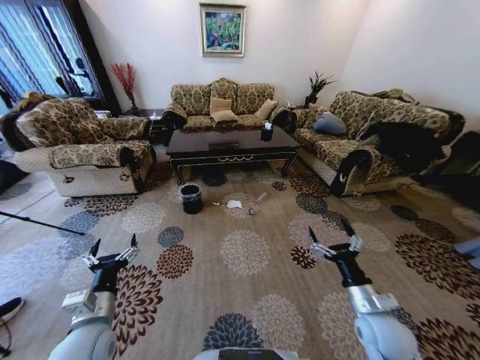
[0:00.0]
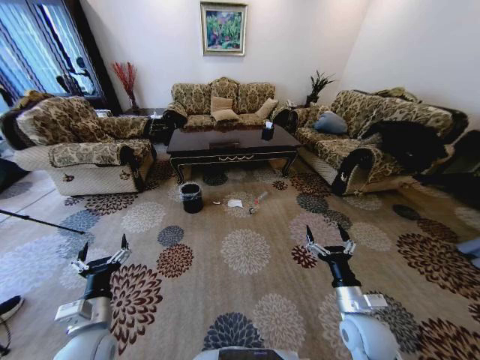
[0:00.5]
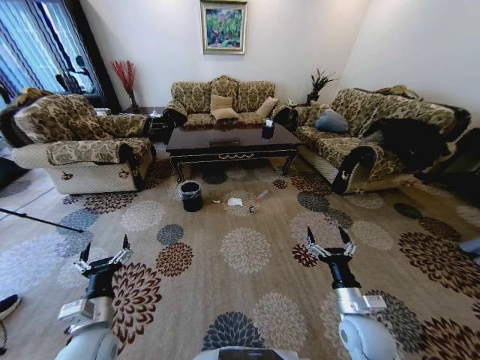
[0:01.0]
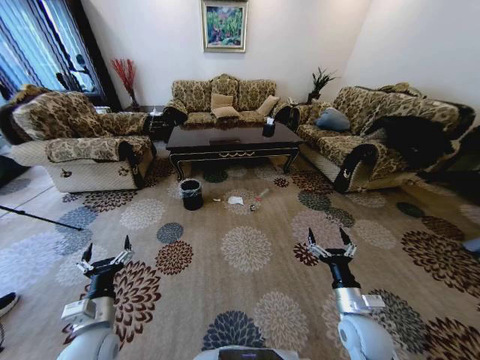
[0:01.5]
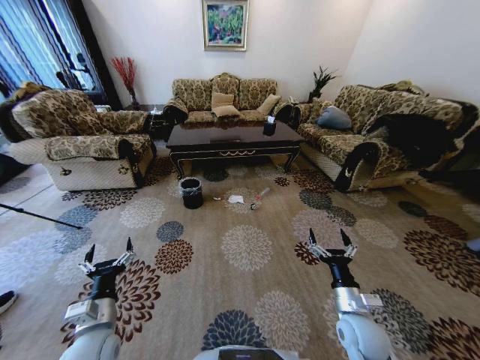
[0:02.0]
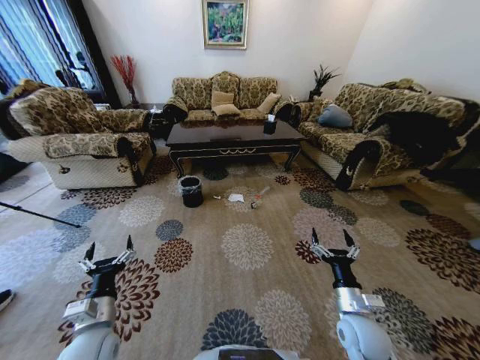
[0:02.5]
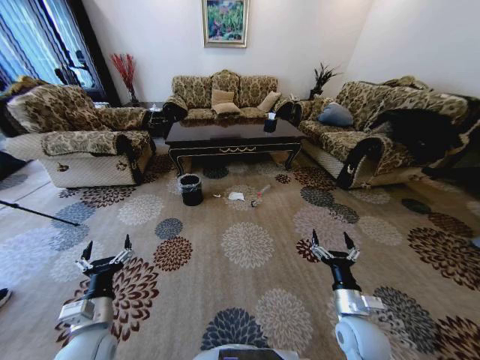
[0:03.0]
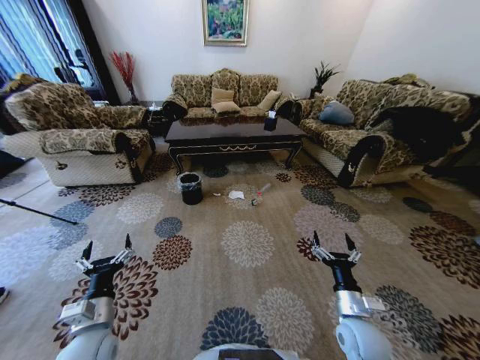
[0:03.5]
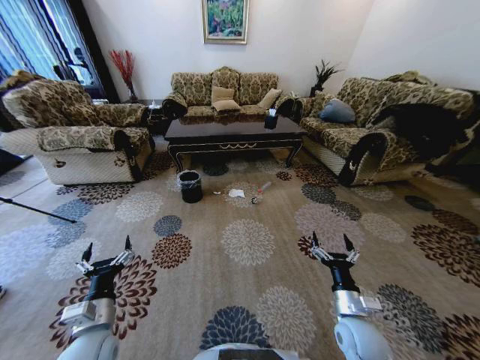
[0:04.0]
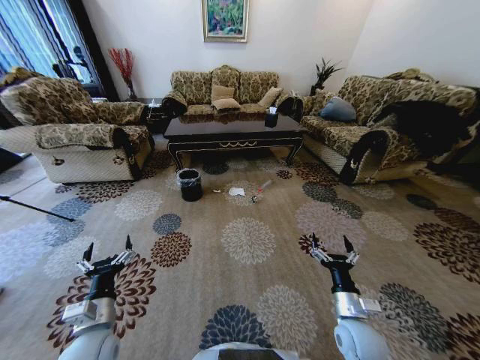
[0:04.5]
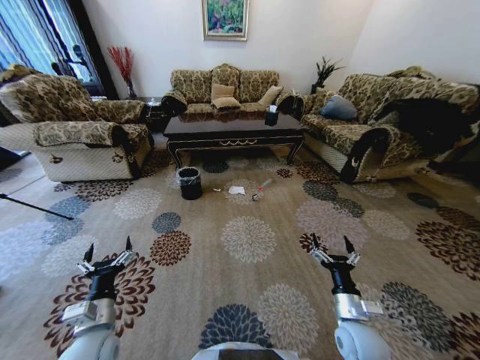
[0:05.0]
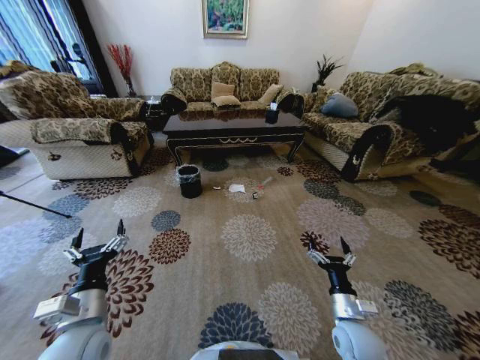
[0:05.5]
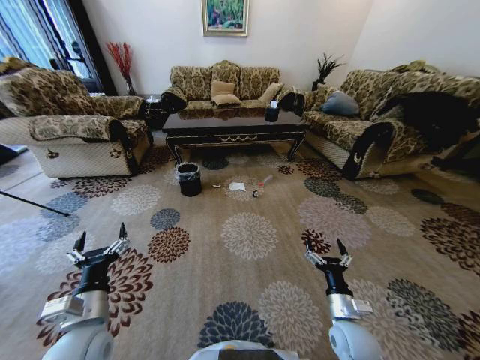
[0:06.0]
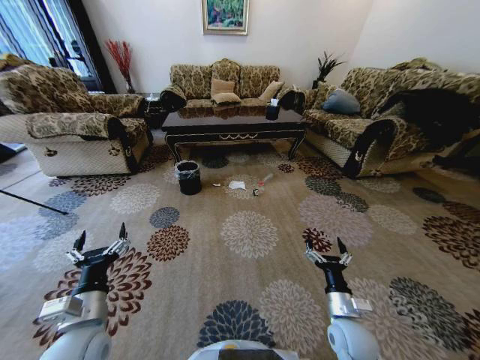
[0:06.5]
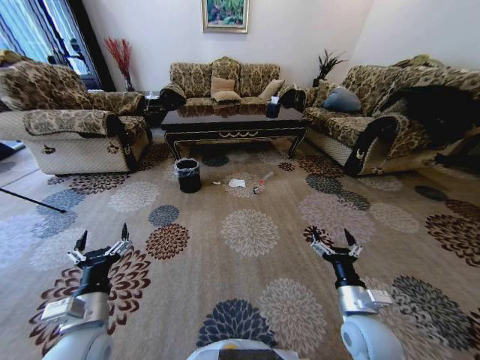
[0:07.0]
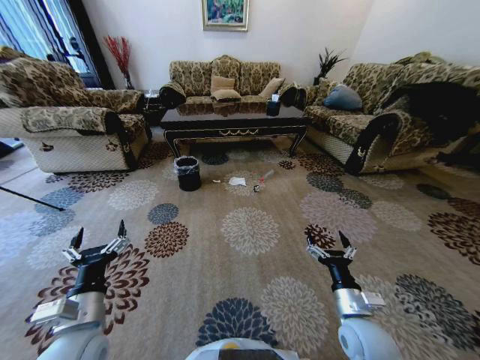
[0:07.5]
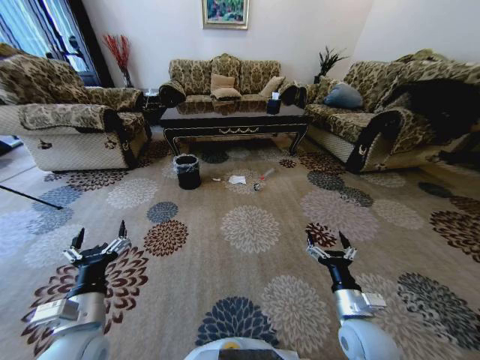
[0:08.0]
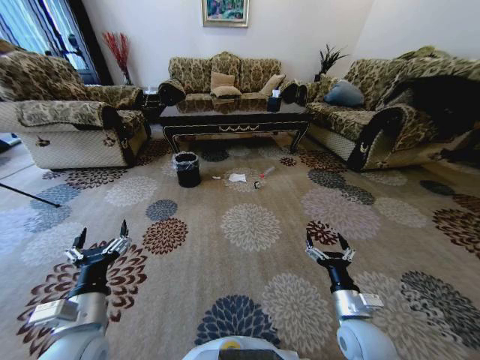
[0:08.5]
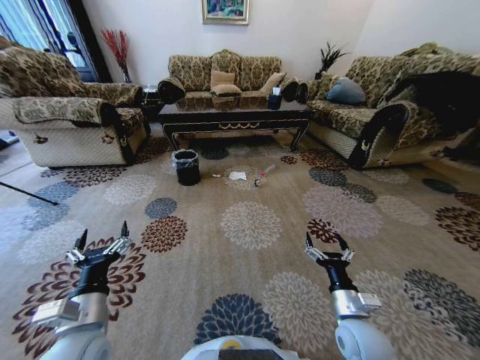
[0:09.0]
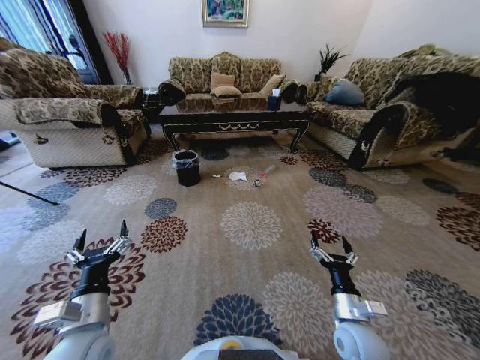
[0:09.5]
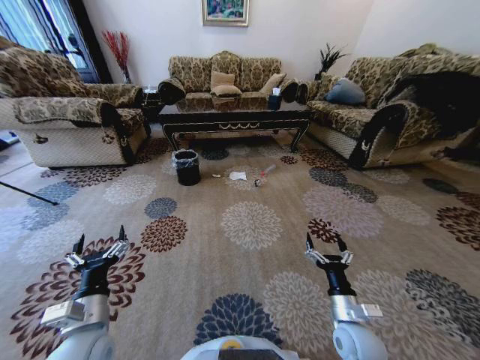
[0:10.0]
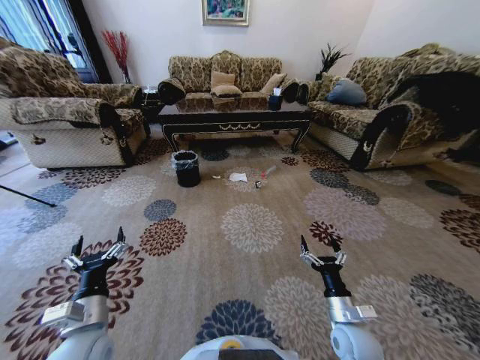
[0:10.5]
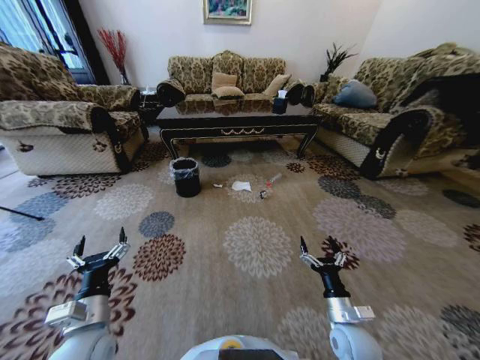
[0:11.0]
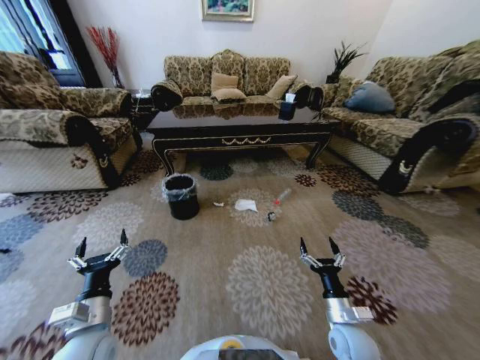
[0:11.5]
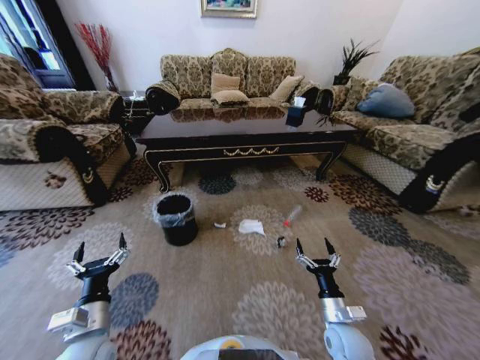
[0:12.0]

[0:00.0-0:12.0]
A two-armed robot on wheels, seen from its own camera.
Task of the whole recording: Move to the front of the table and pick up the trash from the floor, then place it into the trash bin.
0:06.0 to 0:08.0: The right gripper shifts roughly 5 cm upward.

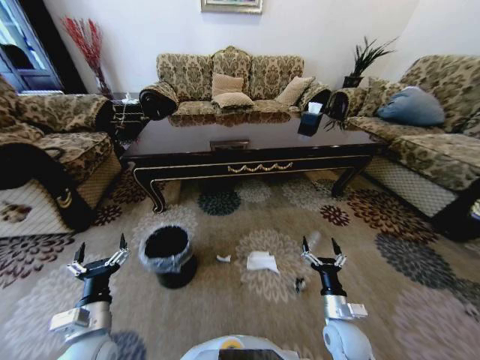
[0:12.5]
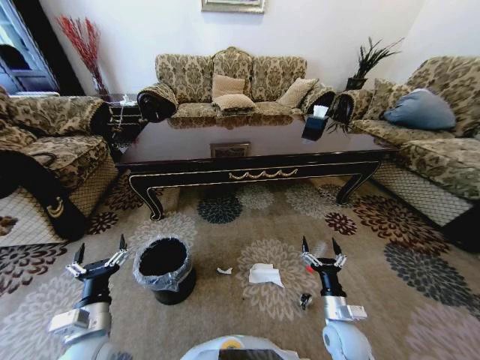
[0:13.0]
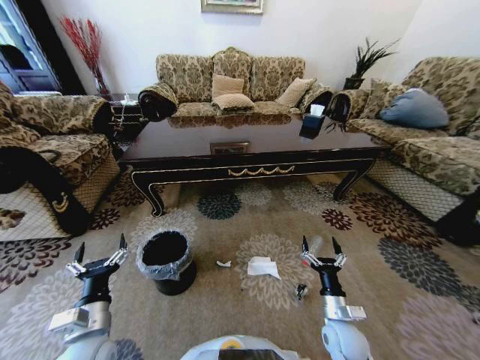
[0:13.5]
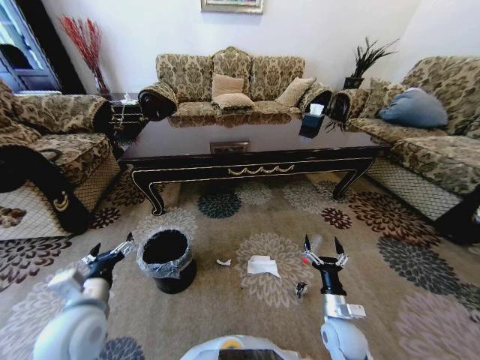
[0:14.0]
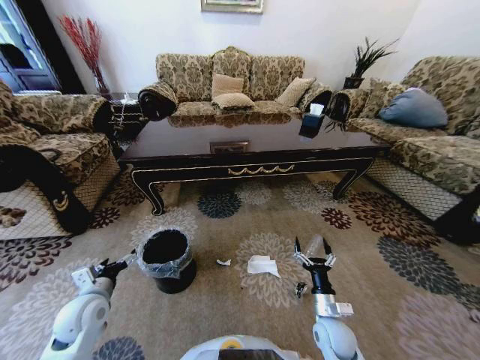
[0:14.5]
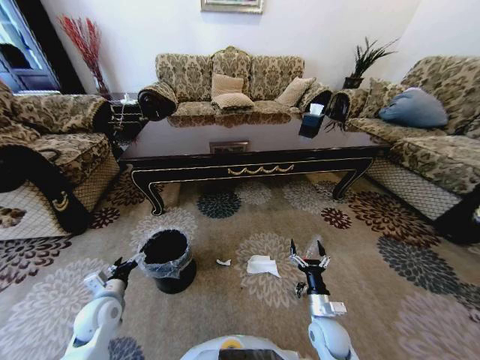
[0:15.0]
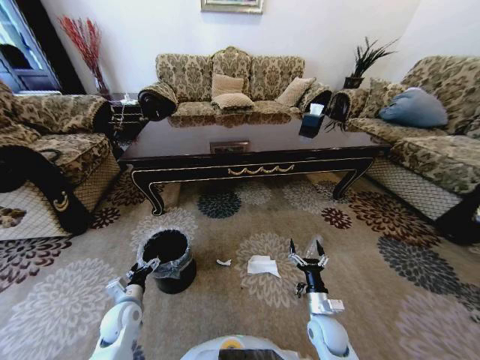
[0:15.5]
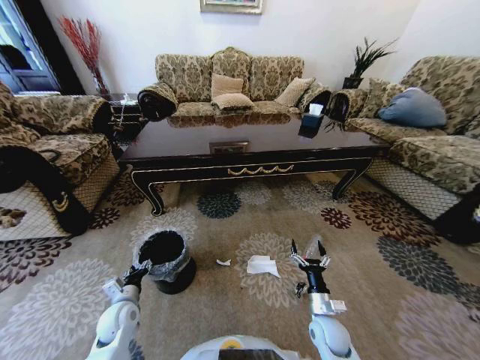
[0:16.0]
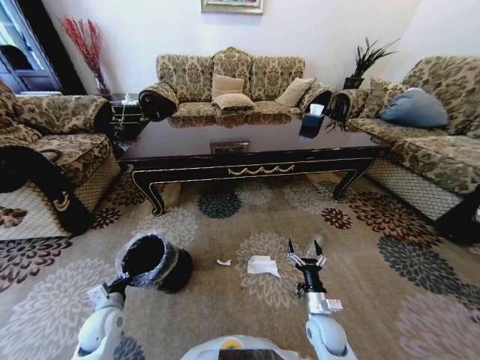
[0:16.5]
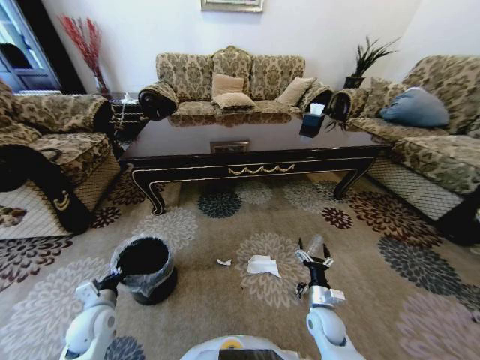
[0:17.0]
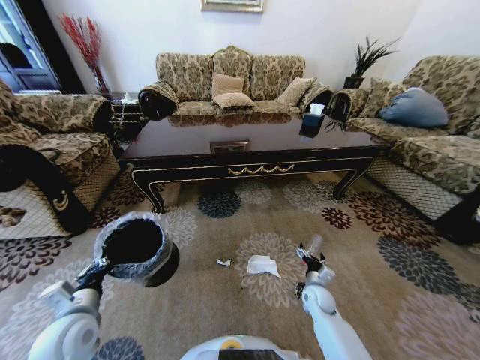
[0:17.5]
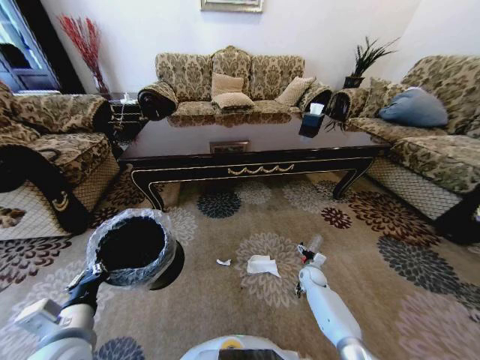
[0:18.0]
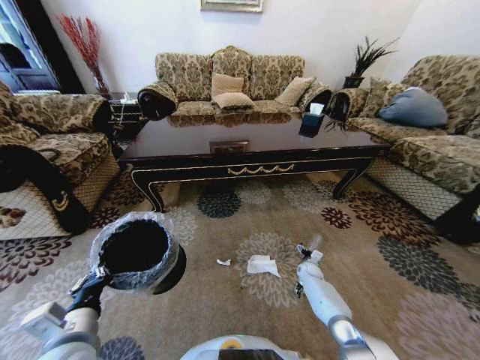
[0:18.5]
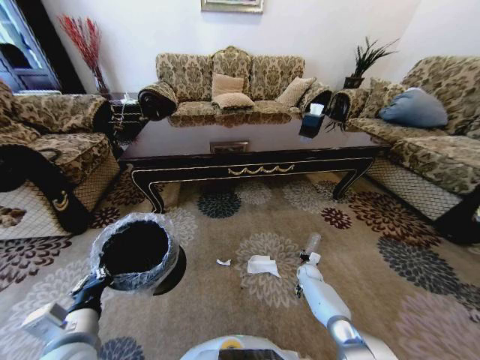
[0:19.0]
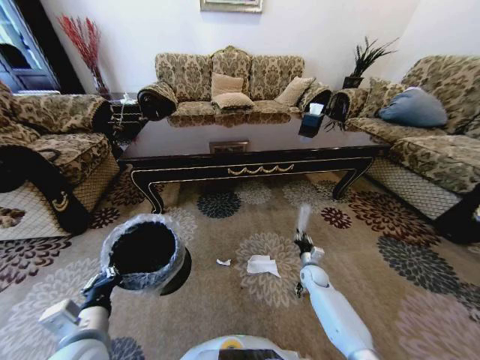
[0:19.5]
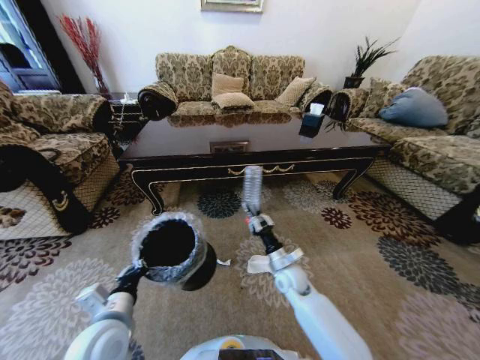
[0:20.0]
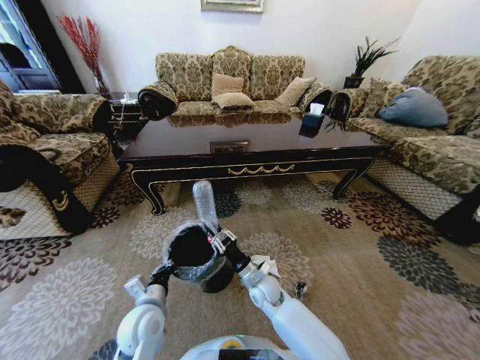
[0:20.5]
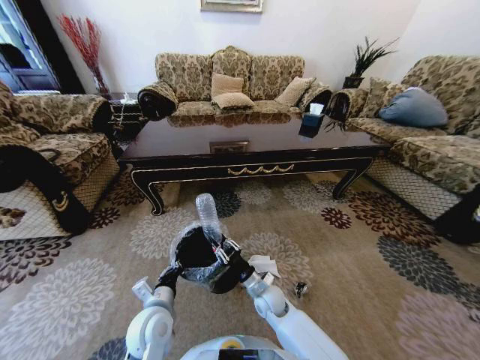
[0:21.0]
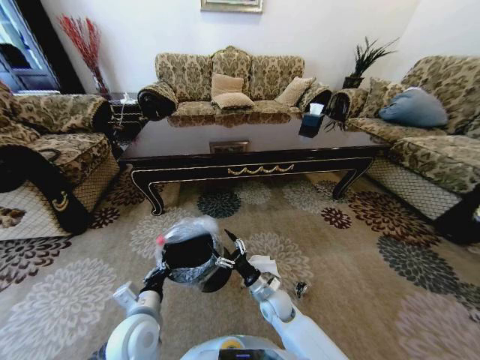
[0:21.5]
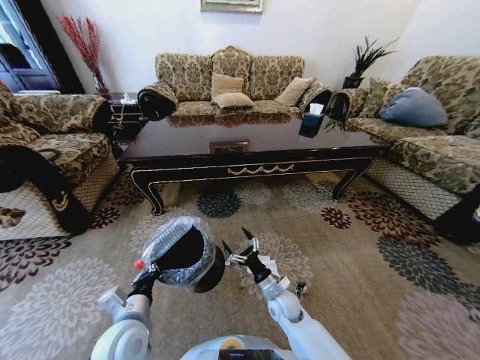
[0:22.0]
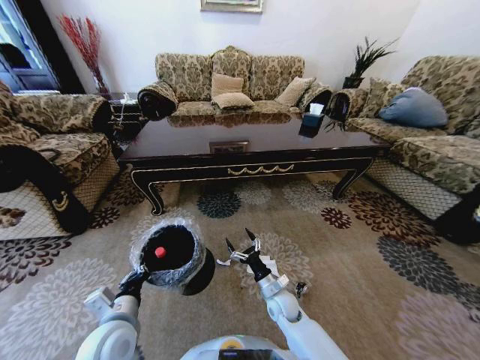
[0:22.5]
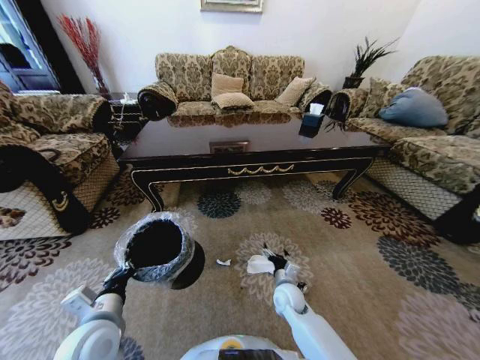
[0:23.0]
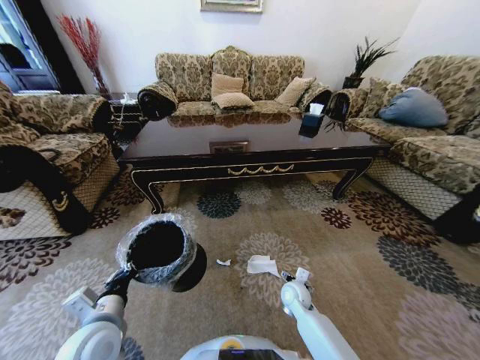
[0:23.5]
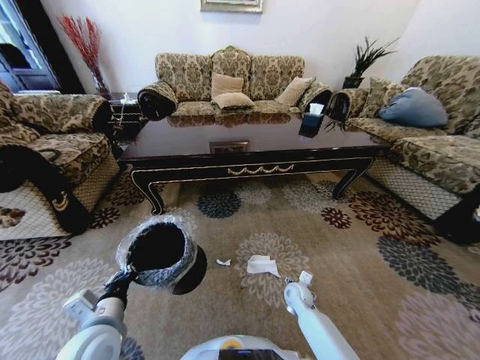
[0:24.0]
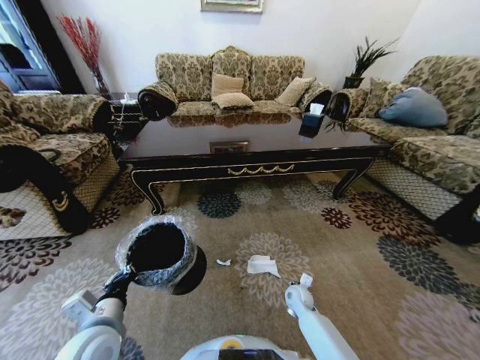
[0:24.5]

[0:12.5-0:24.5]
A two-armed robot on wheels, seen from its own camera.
Task of the whole recording: Move to the front of the table and pick up the trash from the floor, then place it into the trash bin.
0:12.5 to 0:14.5: The left gripper travels forward and to the left by about 10 cm.
0:14.5 to 0:16.5: The left gripper is displaced downward by about 10 cm, and closes up.
0:16.5 to 0:18.5: The left gripper heads upward, backward and to the right, covering about 20 cm; the right gripper heads forward and downward, covering approximately 25 cm.
0:18.5 to 0:20.5: The left gripper travels downward, forward and to the right by some 15 cm. Meanwhile the right gripper moves to the left, upward and backward, about 30 cm, and closes.
0:20.5 to 0:22.5: The left gripper moves some 5 cm. Meanwhile the right gripper heads to the right, covering about 5 cm, and opens.
0:22.5 to 0:24.5: The right gripper moves to the right and downward, roughly 10 cm.

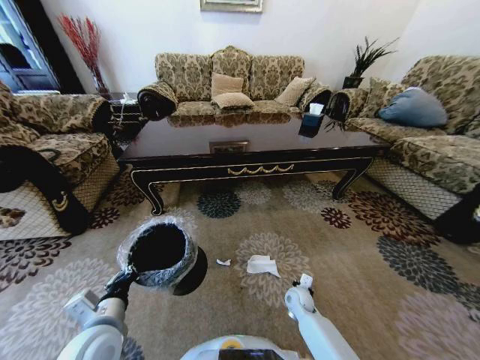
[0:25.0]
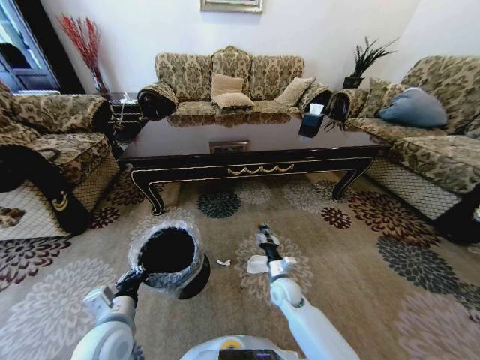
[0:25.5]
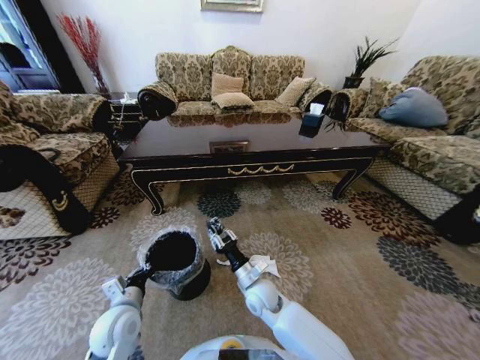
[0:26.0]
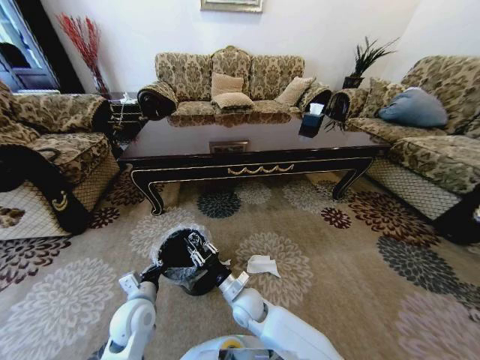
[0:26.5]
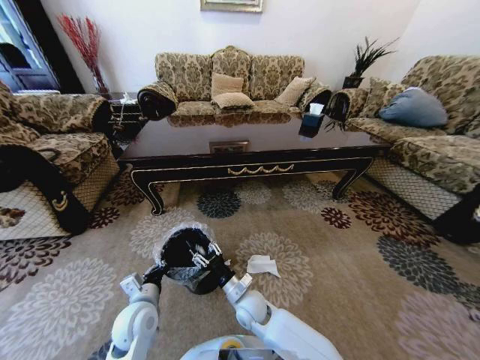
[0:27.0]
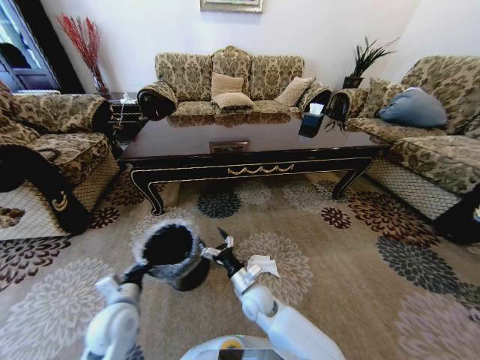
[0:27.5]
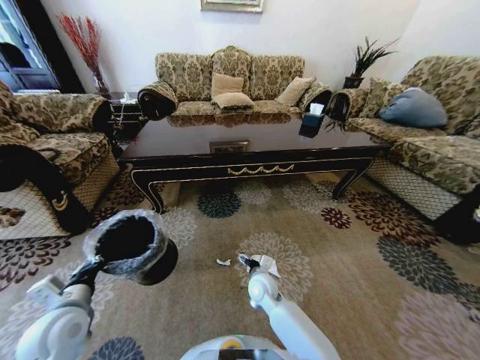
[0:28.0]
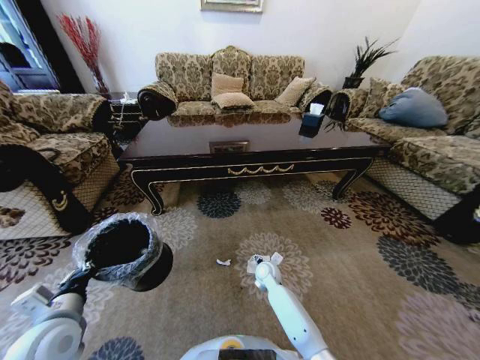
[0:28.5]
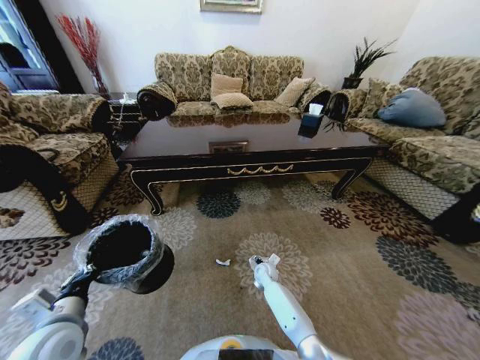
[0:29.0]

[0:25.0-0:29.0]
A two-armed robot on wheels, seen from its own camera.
Task of the whole recording: Move to the front of the table and pick up the trash from the floor, then place it into the trash bin.
0:25.0 to 0:27.0: The left gripper heads downward and forward, covering about 10 cm; the right gripper shifts about 20 cm to the left and upward.
0:27.0 to 0:29.0: The right gripper is displaced forward, downward and to the right by about 20 cm; the left gripper shifts roughly 15 cm to the left, upward and backward.
